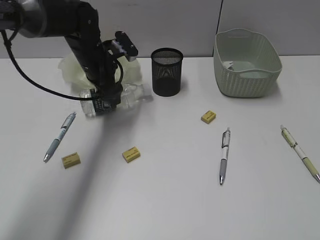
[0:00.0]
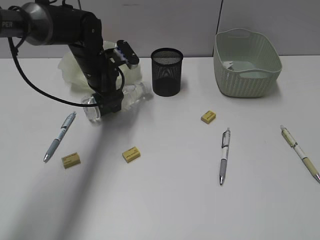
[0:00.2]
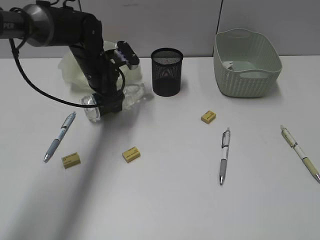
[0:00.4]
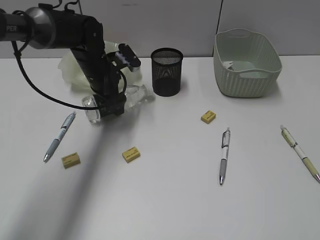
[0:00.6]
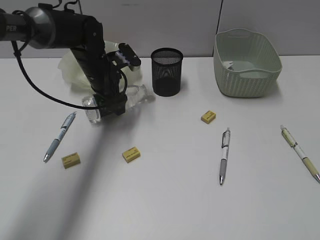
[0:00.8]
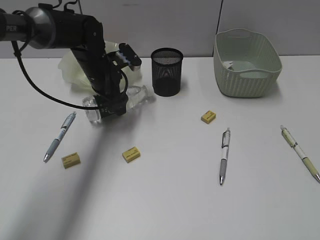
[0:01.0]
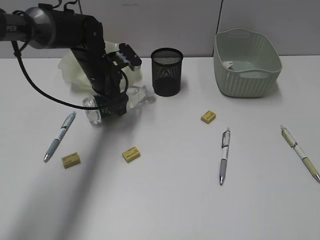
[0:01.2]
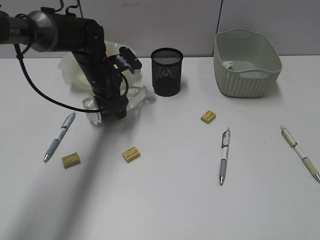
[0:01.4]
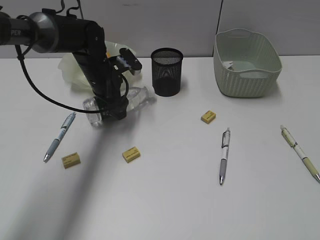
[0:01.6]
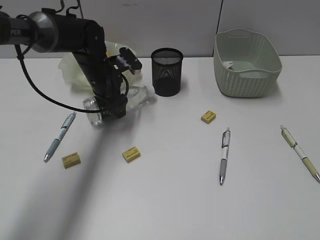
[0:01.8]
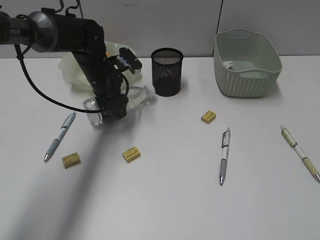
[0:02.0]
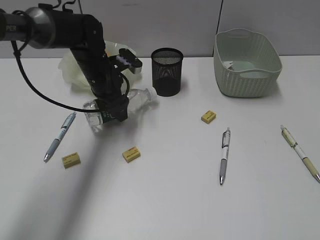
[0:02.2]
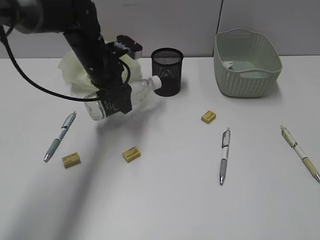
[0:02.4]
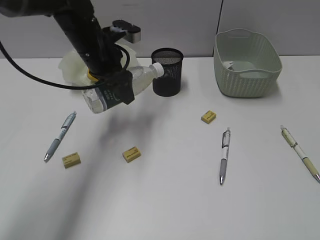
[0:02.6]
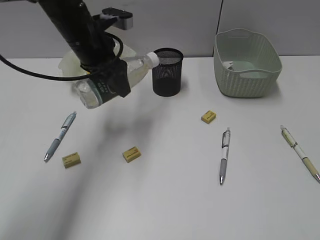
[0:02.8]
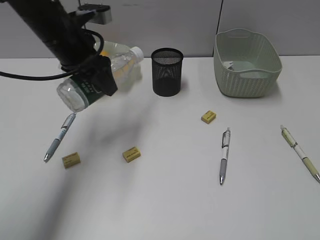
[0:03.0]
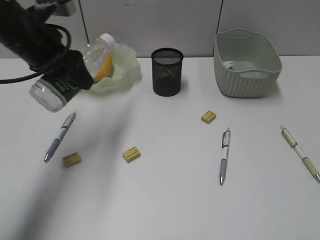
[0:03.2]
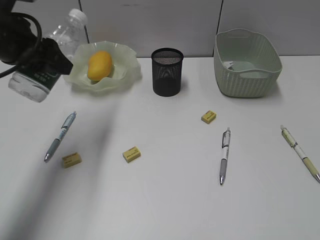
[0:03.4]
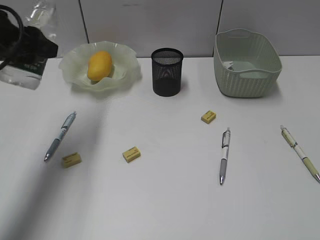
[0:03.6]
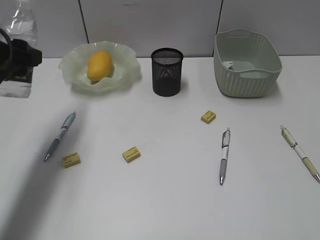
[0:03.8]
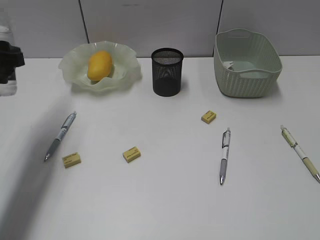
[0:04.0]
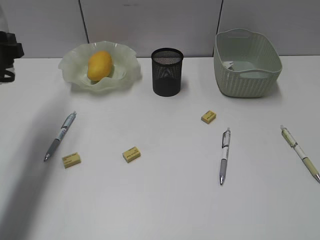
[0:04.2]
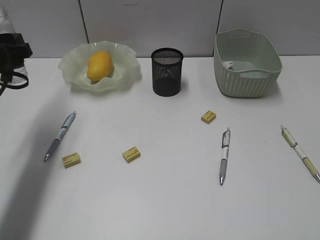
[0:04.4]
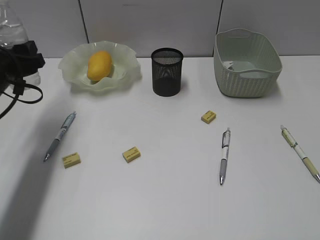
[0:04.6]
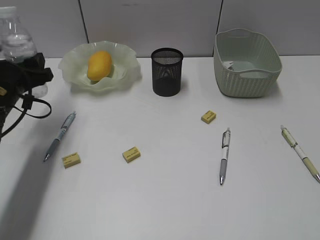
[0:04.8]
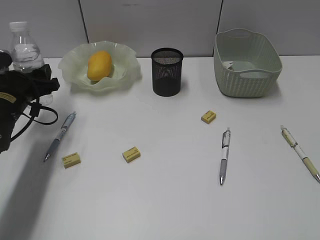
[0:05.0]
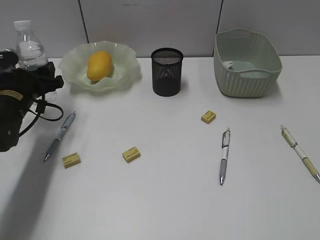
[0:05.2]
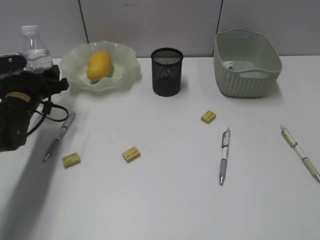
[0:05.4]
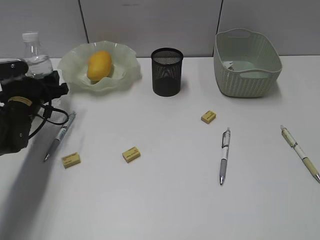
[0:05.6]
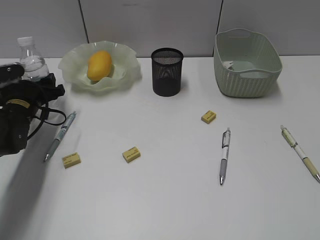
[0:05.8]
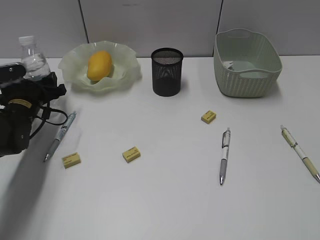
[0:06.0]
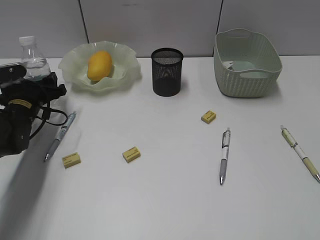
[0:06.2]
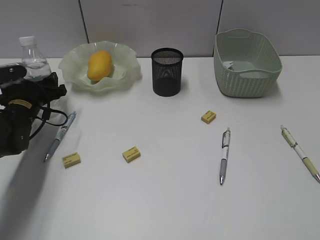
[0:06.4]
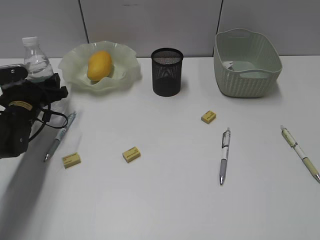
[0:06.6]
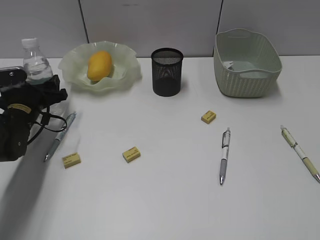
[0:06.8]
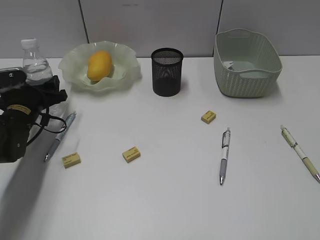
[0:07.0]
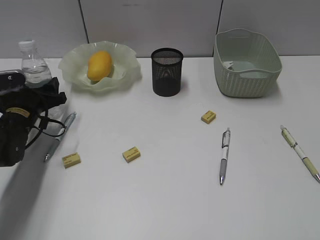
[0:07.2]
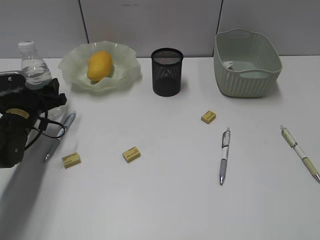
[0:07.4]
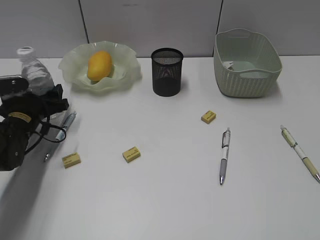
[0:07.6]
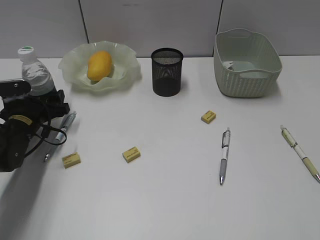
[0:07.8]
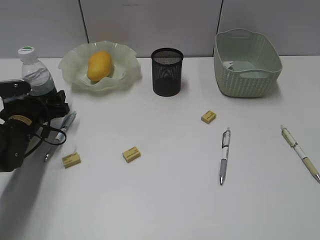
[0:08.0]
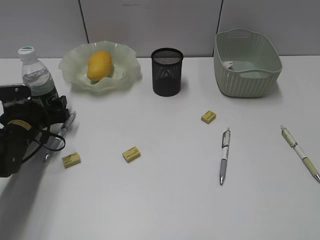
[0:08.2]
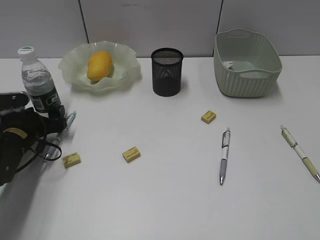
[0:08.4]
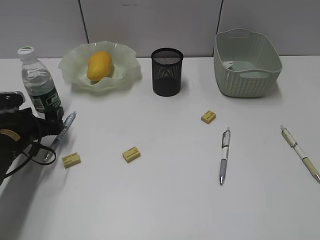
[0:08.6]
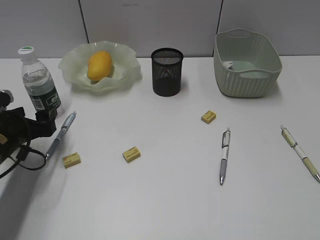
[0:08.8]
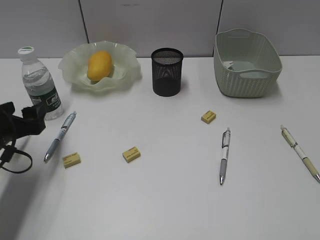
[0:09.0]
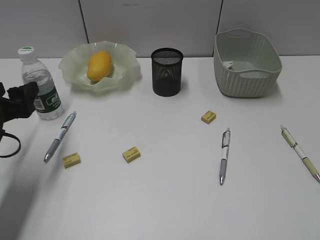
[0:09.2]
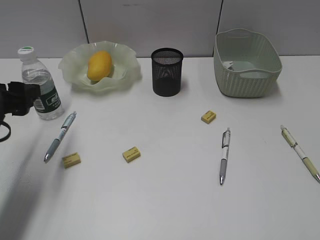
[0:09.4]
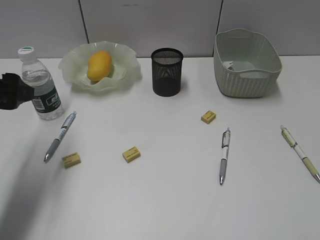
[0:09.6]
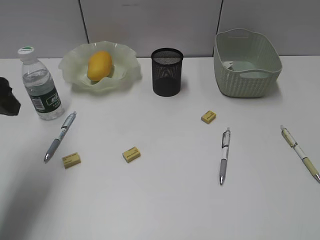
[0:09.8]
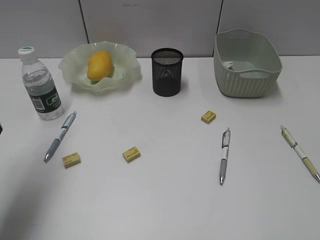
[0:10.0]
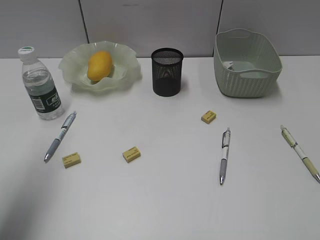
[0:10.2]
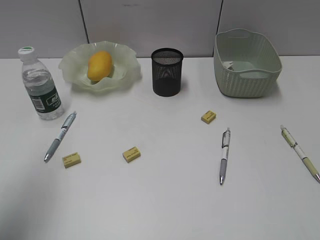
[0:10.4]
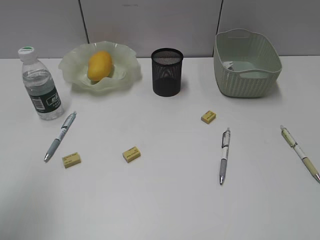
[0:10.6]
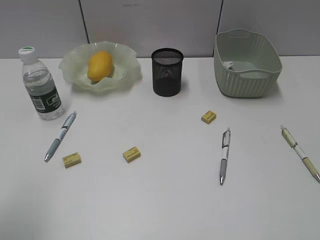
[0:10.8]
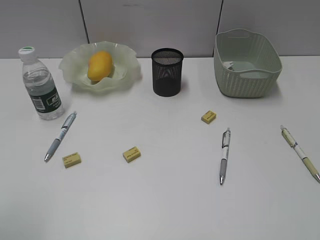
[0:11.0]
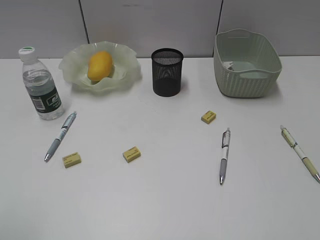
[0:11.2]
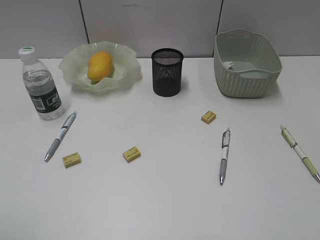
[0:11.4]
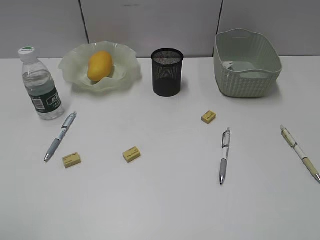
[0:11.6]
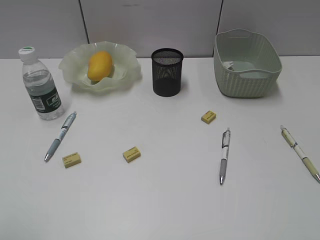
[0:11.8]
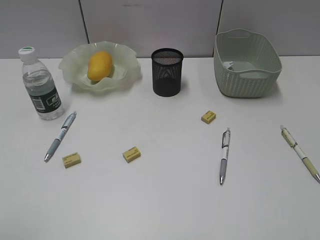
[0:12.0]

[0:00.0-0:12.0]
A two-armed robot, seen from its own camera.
Step, 0:00.0 to 0:02.0: Grasp the bottle with left gripper.
Step, 0:02.2 to 0:08.6: Stand the bottle with left gripper.
0:00.0 to 0:01.6: The grippers make only small movements.
0:01.6 to 0:03.0: The left gripper shifts approximately 15 cm upward and backward.
0:03.0 to 0:04.4: The left gripper shifts some 15 cm to the left and backward.
0:04.4 to 0:06.0: The left gripper shifts some 15 cm downward and forward.
0:06.0 to 0:07.6: The grippers make only small movements.
0:07.6 to 0:09.0: The left gripper is displaced backward and upward by approximately 10 cm.
0:09.0 to 0:10.4: The left gripper moves upward and backward, approximately 20 cm.
0:10.4 to 0:12.0: The left gripper is displaced backward by roughly 15 cm.

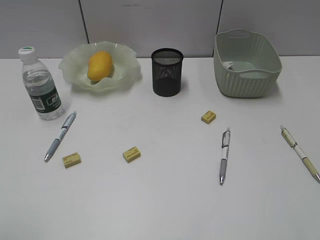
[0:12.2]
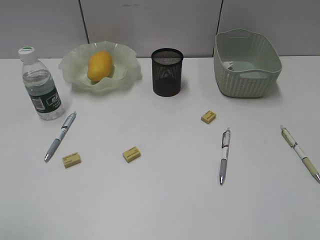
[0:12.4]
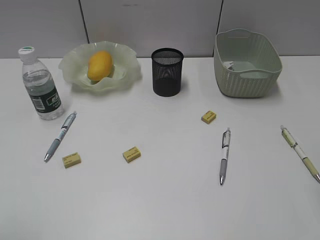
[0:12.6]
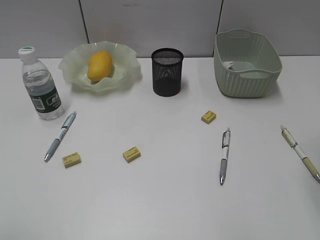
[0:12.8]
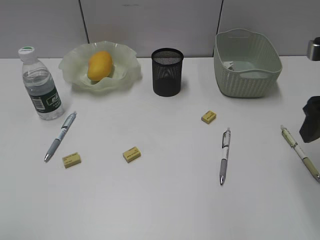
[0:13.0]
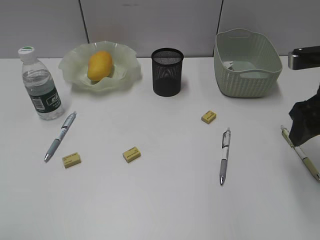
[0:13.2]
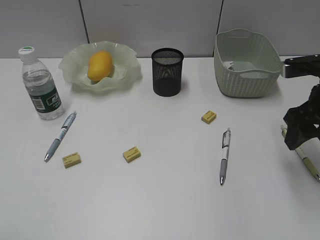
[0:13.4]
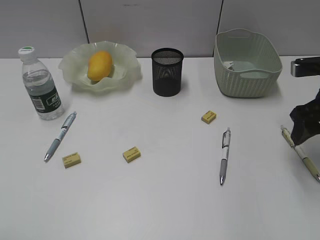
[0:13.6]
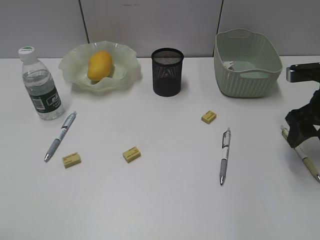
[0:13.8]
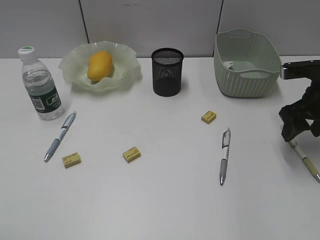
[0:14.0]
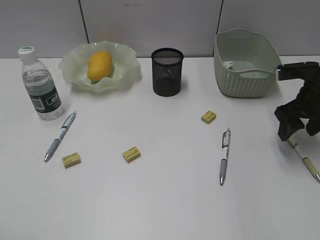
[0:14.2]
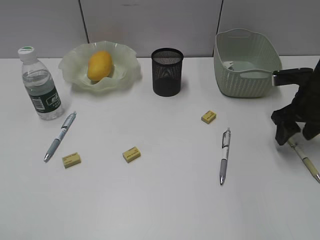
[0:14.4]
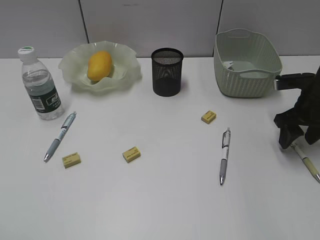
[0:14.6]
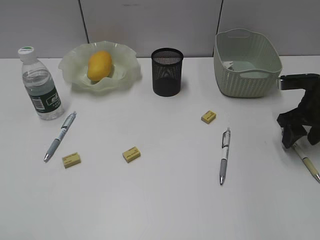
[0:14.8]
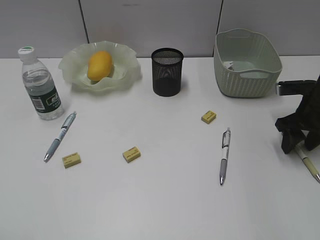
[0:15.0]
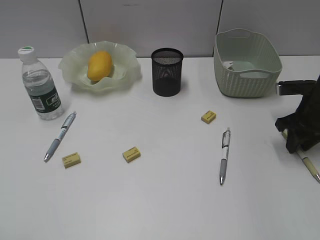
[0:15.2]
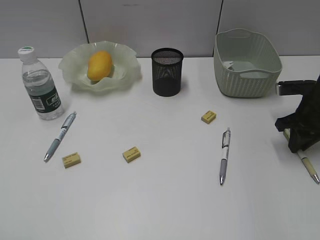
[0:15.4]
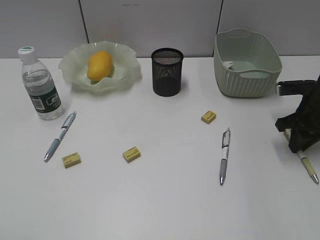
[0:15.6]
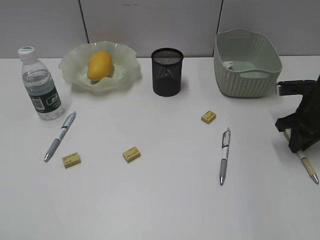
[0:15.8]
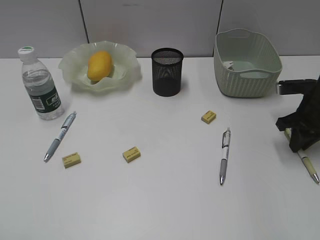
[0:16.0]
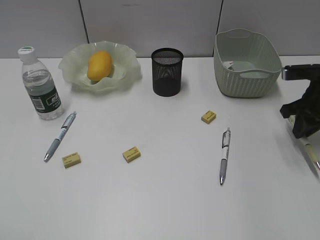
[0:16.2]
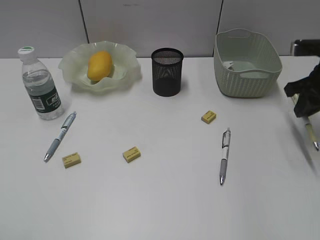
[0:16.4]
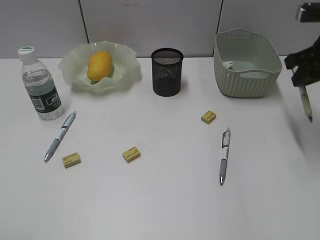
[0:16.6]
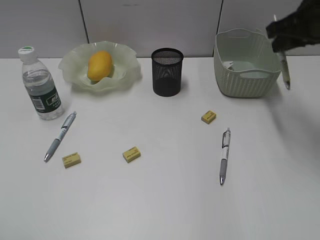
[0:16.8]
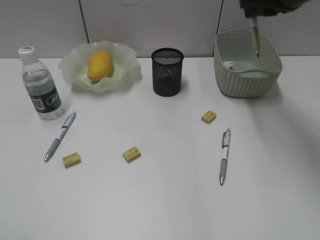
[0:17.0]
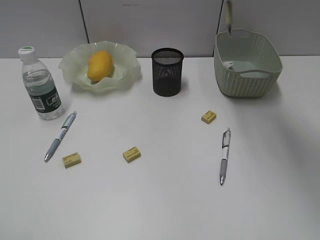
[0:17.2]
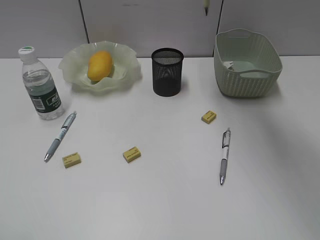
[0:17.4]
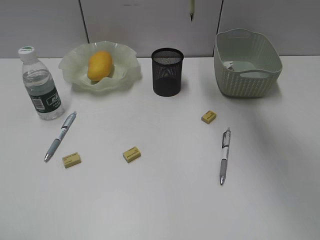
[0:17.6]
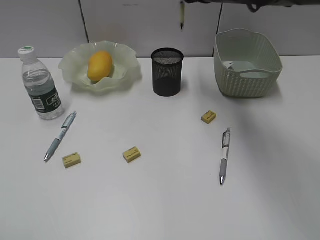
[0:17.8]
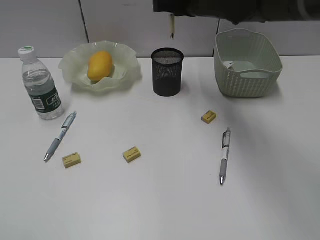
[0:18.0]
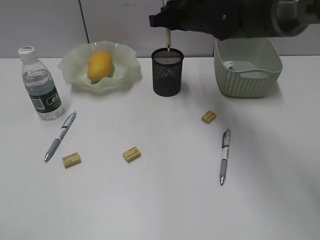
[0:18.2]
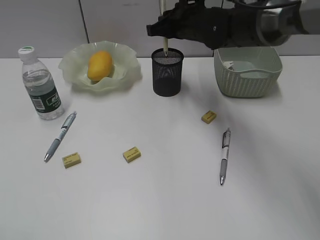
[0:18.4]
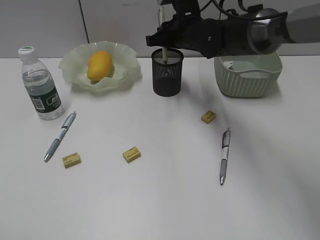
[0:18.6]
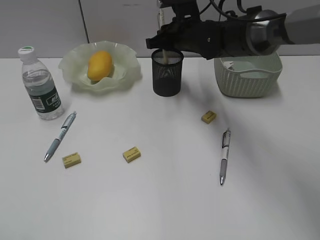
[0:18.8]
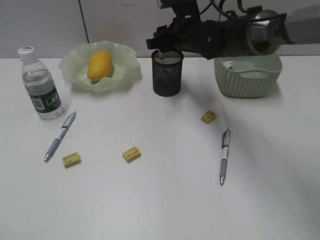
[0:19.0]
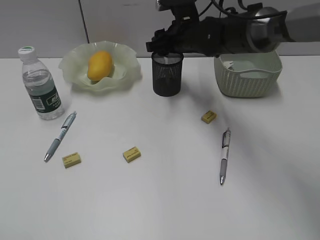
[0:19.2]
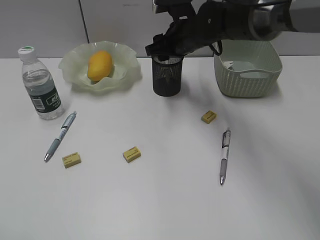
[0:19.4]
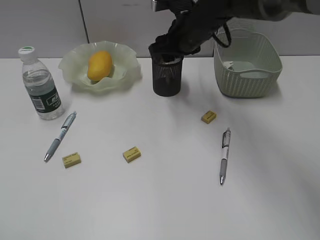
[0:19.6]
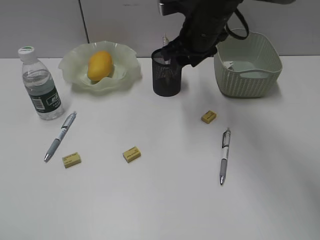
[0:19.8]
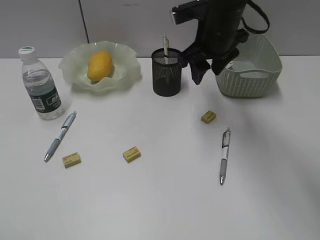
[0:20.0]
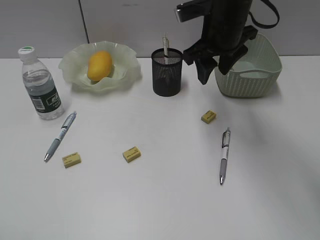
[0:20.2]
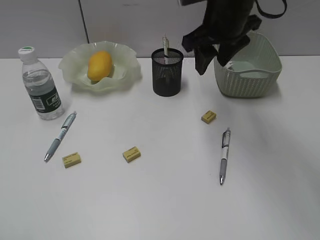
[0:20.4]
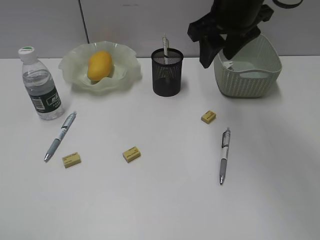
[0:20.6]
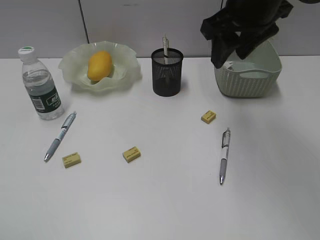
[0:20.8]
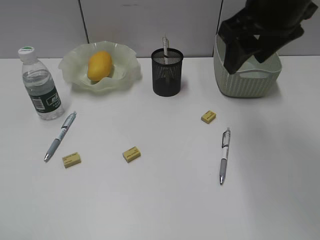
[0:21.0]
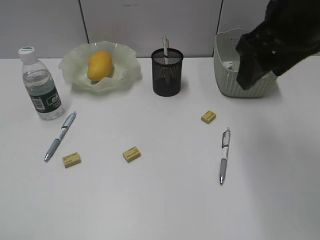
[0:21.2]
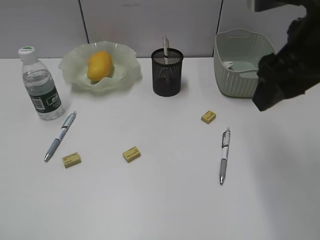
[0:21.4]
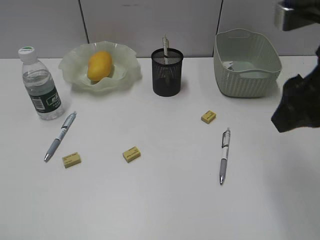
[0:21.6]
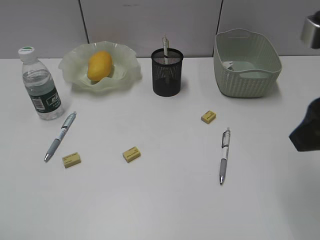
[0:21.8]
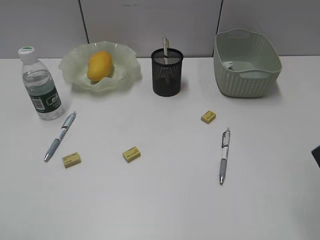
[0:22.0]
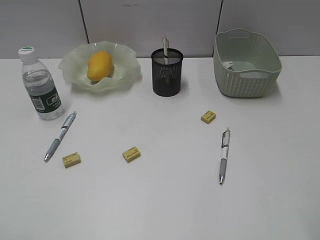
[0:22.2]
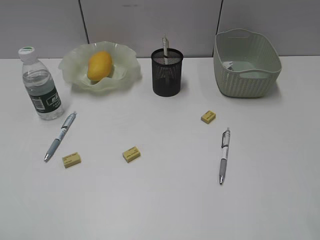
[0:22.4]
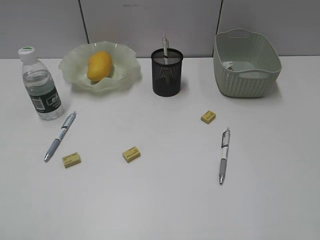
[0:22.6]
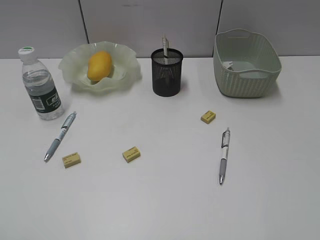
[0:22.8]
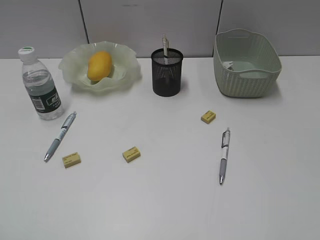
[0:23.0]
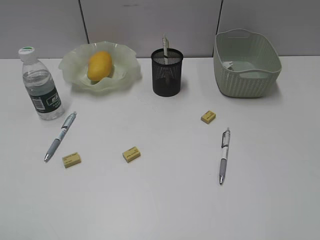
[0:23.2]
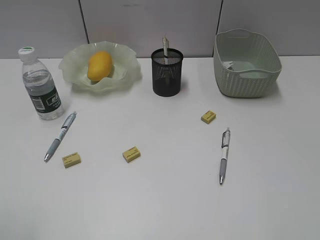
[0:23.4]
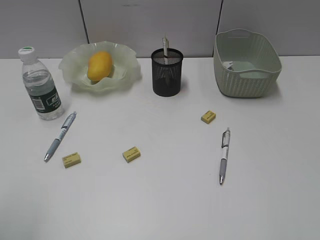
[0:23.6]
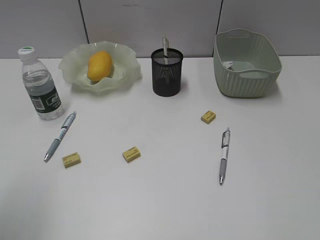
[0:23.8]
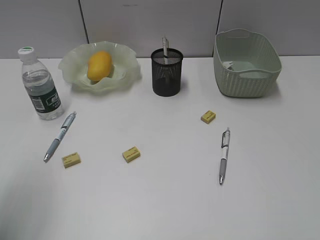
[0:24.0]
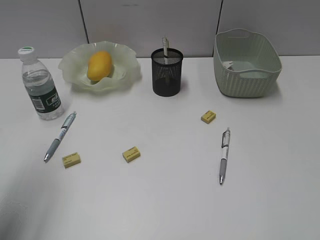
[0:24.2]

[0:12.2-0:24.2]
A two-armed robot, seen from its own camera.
Step, 0:12.2 to 0:15.8: Grasp the yellow pen with right gripper.
Step, 0:16.0 to 0:19.0: Place the yellow pen in pen holder with right gripper.
0:12.2 to 0:13.8: The right gripper goes roughly 25 cm forward and downward.
0:13.8 to 0:15.2: The right gripper heads downward, covering some 5 cm, and closes.
0:15.2 to 0:16.6: The right gripper is displaced upward by approximately 15 cm.
0:16.6 to 0:18.2: The right gripper shifts roughly 25 cm to the left and forward.
0:18.2 to 0:19.8: The right gripper opens up.
0:19.8 to 0:21.2: The right gripper is displaced backward, upward and to the right by approximately 20 cm.
0:21.2 to 0:22.6: The right gripper heads backward and to the right, covering approximately 25 cm.
0:22.6 to 0:24.2: The left gripper shifts roughly 20 cm forward.
